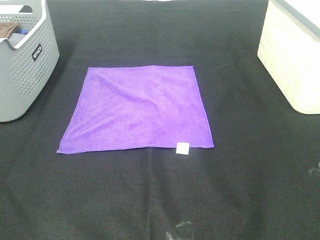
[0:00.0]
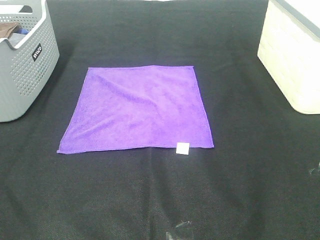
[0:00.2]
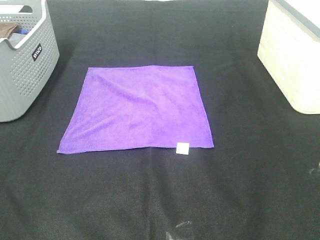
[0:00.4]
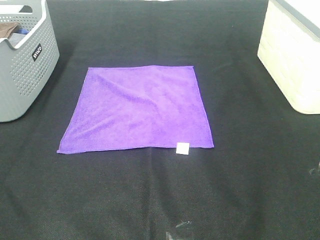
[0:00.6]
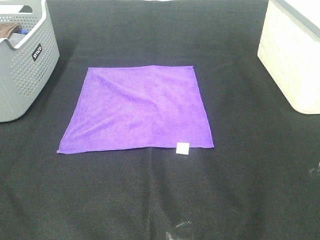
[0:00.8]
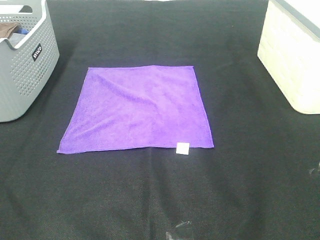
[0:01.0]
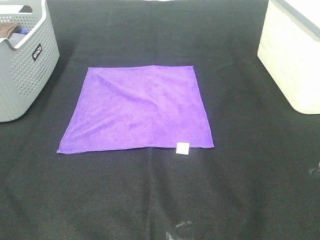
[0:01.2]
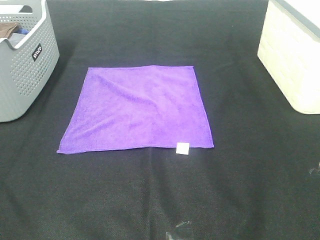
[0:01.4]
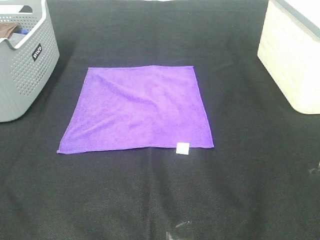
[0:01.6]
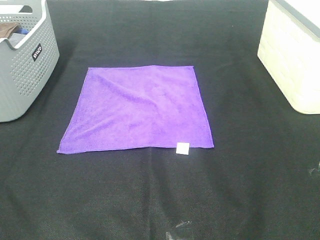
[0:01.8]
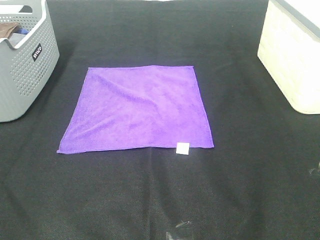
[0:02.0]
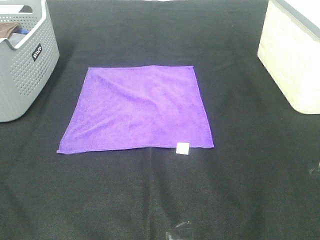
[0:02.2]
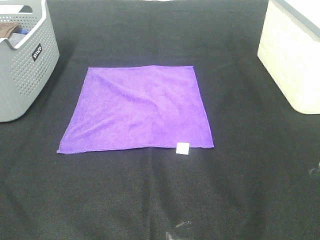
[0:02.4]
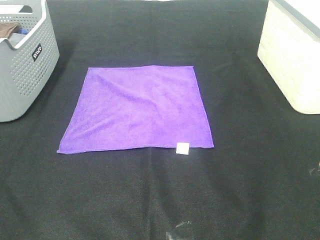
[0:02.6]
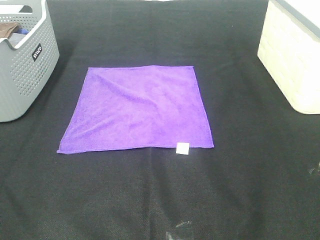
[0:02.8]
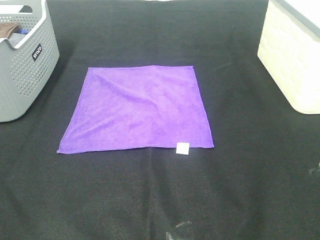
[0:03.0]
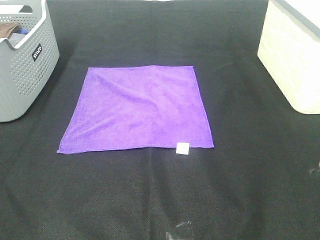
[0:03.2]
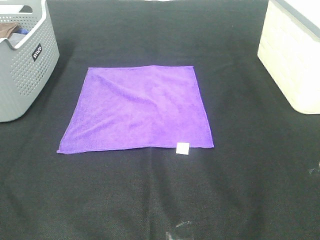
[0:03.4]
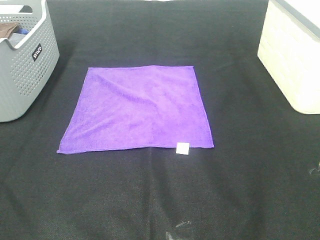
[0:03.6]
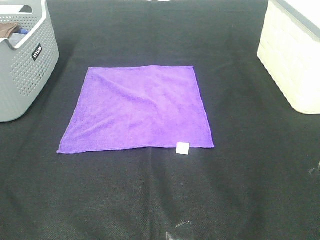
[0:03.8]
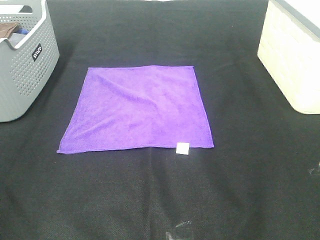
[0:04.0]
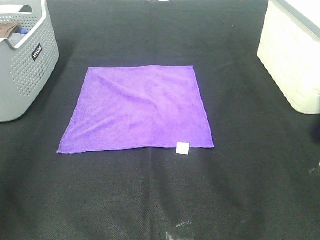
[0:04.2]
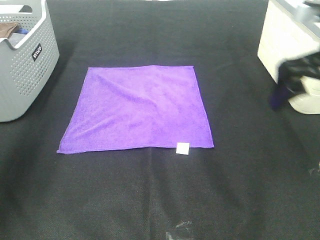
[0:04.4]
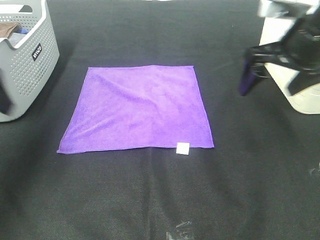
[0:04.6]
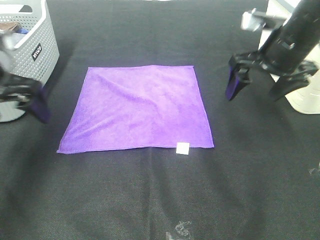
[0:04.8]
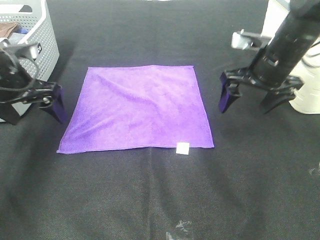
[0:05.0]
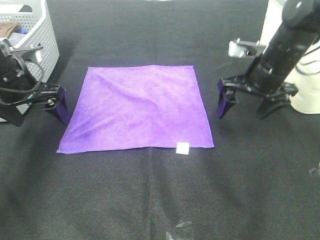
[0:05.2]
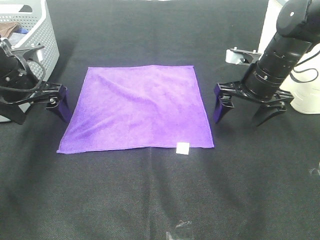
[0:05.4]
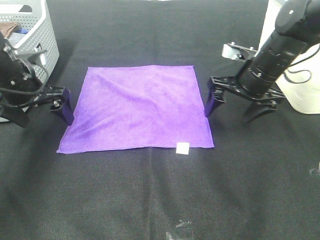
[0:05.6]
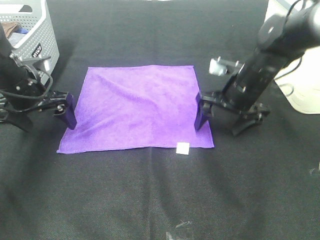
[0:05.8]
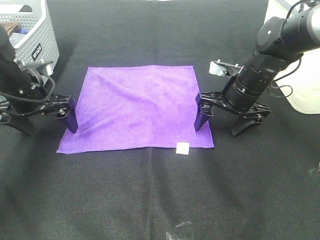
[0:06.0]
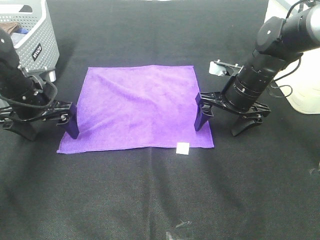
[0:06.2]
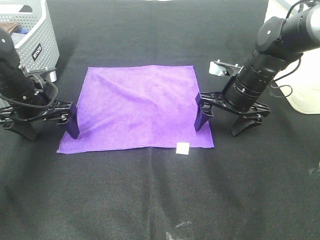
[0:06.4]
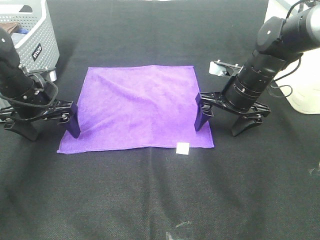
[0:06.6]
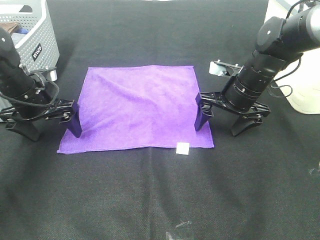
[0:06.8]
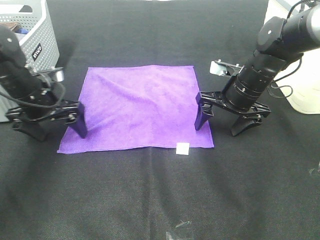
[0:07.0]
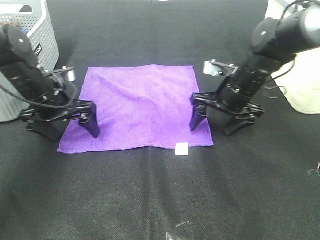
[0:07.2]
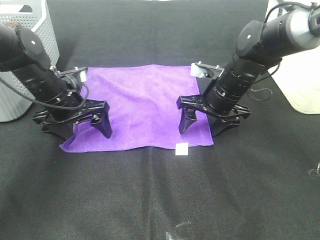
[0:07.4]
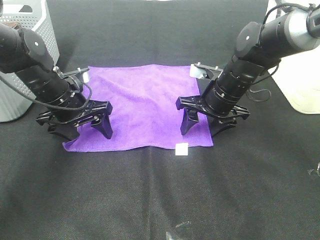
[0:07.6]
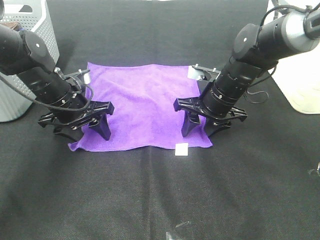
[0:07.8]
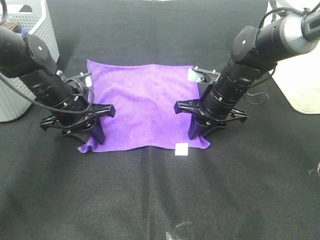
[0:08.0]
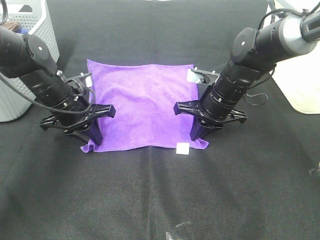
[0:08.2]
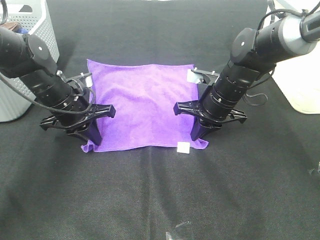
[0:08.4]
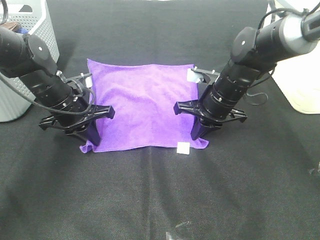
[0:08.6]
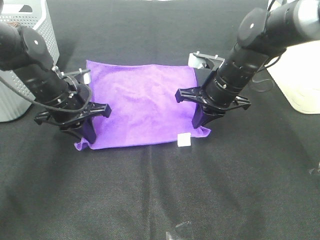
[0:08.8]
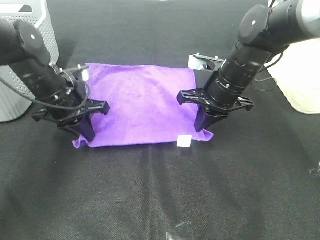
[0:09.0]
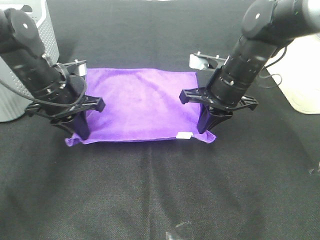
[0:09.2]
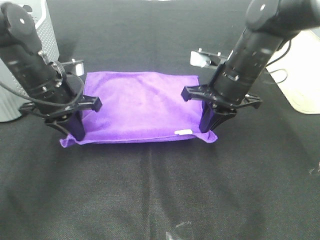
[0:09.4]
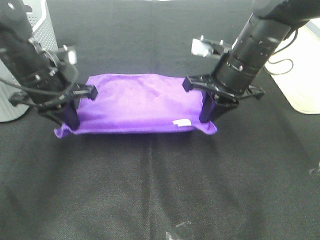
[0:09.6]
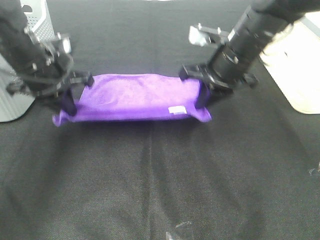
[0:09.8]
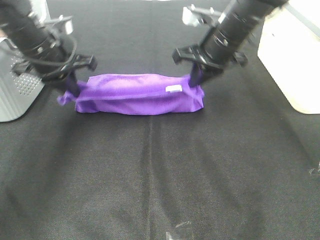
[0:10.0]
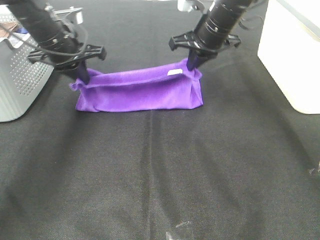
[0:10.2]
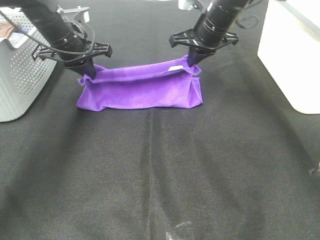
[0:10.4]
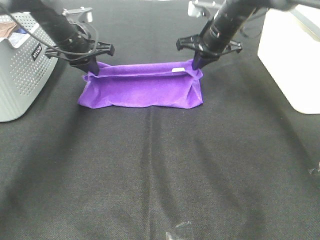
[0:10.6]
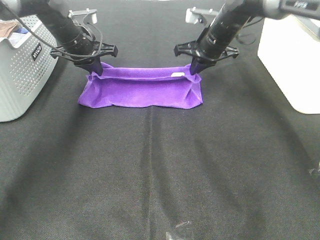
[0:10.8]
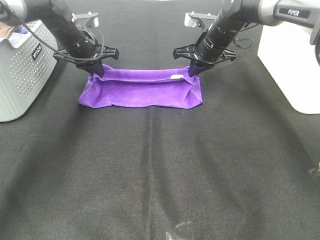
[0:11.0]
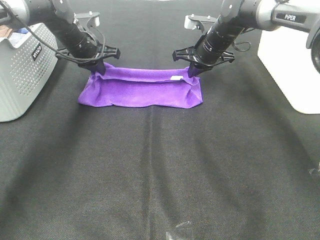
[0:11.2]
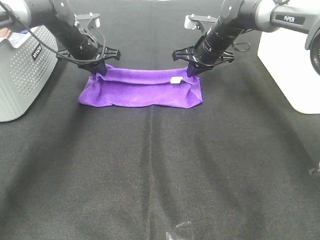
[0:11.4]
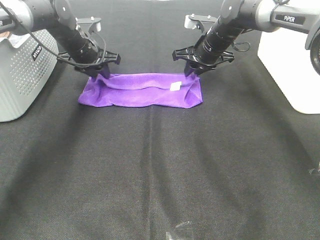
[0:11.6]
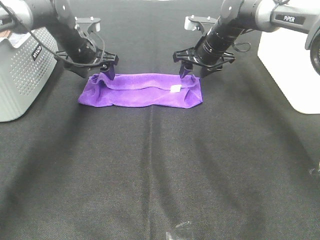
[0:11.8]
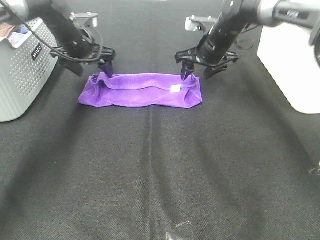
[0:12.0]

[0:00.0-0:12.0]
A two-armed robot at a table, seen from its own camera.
Task of the whole recording: Fold towels.
Step, 0:00.0 to 0:08.2: Left hand: grab the bottom left corner of purple towel.
Step, 0:00.0 to 0:08.2: Right hand: grab the bottom right corner of purple towel.
Step, 0:08.4 to 0:11.2: Left hand: fold the purple towel up.
Step, 0:08.4 to 0:11.2: Right hand: fold the purple towel up.
0:00.0 to 0:03.0: Both grippers stay put.
0:03.0 to 0:04.4: The two grippers go about 25 cm forward.
0:04.4 to 0:06.0: Both grippers move downward and forward, approximately 20 cm.
0:06.0 to 0:07.6: The left gripper travels to the right by roughly 5 cm.
0:07.6 to 0:09.0: The right gripper closes. Meanwhile the left gripper closes.
0:09.0 to 0:10.4: The grippers both shift forward and upward by some 15 cm.
0:10.4 to 0:12.0: The right gripper opens, while the left gripper changes place by roughly 5 cm, and opens.

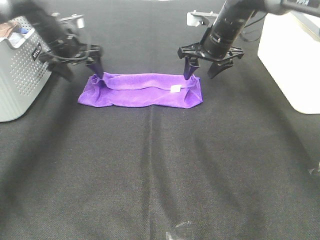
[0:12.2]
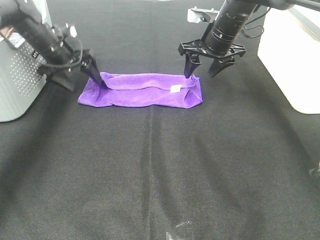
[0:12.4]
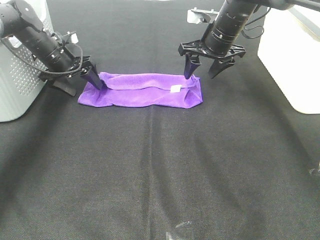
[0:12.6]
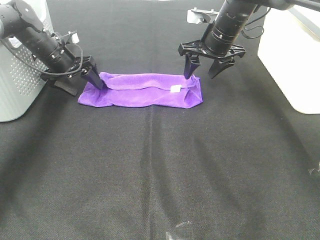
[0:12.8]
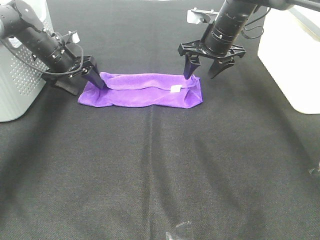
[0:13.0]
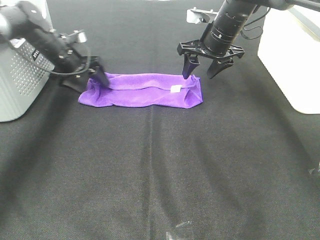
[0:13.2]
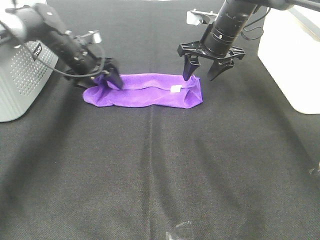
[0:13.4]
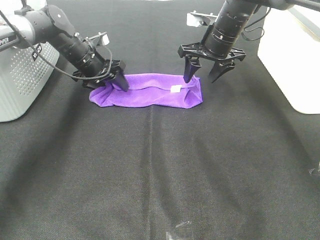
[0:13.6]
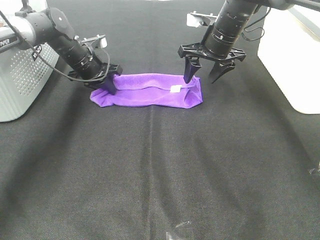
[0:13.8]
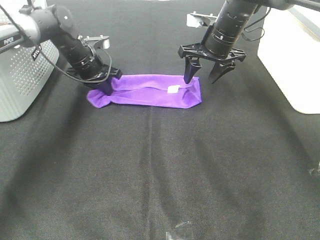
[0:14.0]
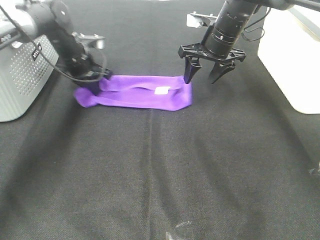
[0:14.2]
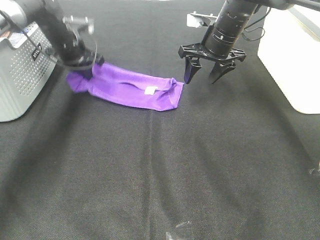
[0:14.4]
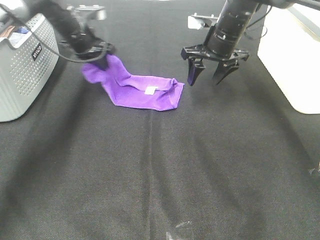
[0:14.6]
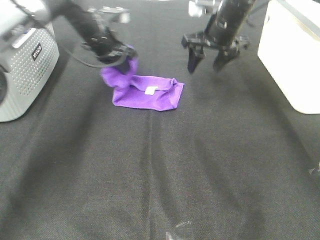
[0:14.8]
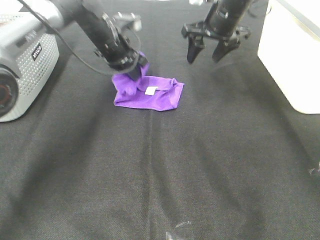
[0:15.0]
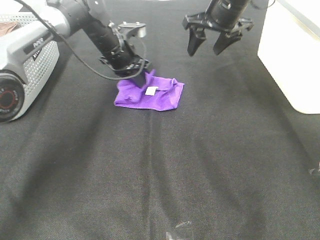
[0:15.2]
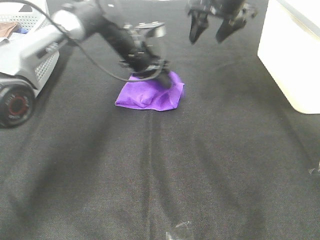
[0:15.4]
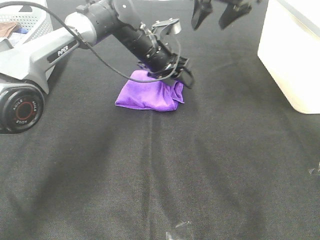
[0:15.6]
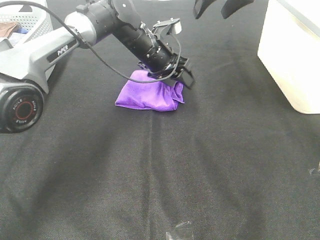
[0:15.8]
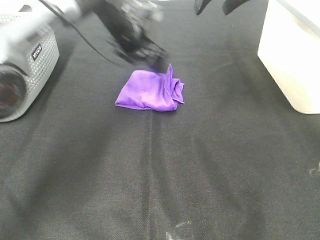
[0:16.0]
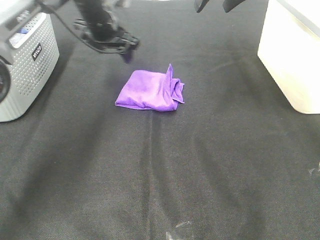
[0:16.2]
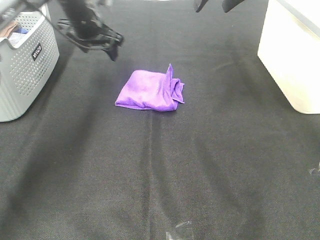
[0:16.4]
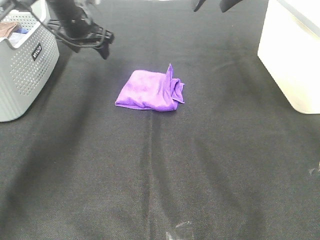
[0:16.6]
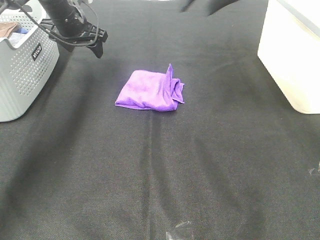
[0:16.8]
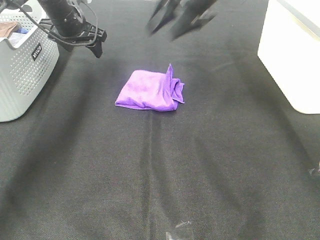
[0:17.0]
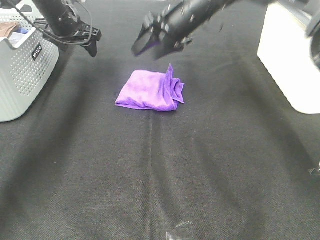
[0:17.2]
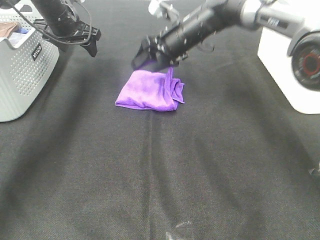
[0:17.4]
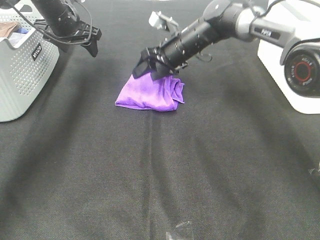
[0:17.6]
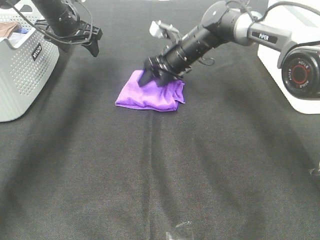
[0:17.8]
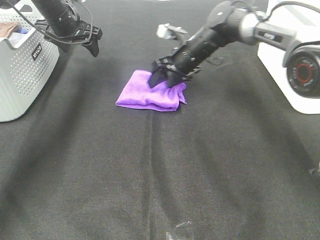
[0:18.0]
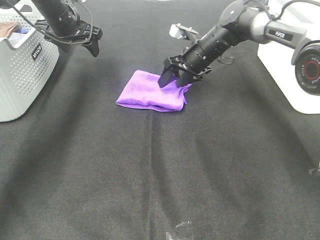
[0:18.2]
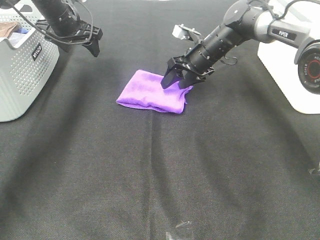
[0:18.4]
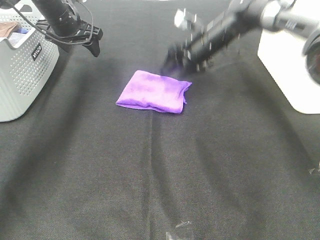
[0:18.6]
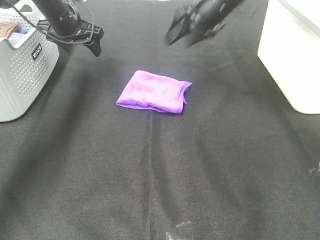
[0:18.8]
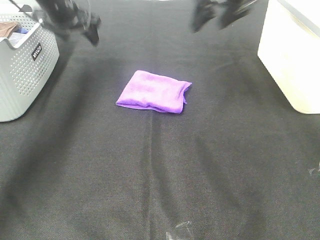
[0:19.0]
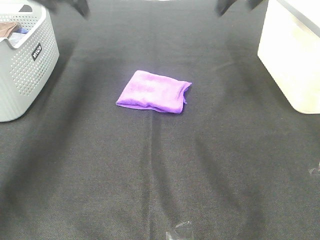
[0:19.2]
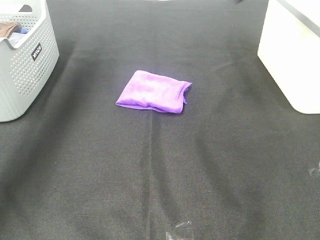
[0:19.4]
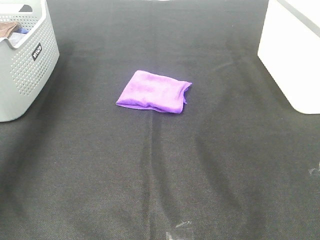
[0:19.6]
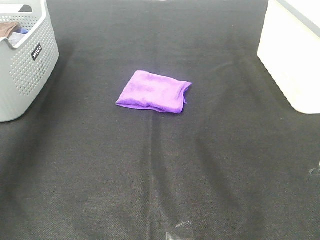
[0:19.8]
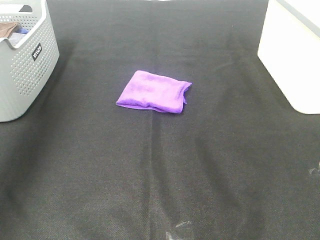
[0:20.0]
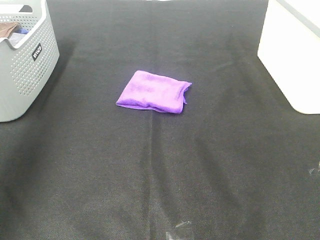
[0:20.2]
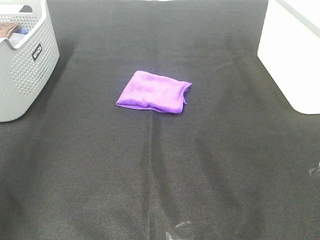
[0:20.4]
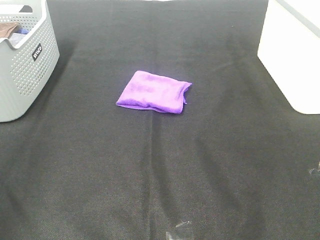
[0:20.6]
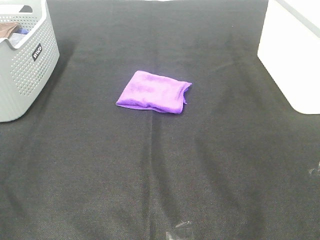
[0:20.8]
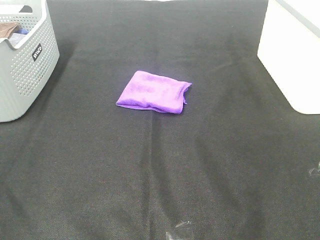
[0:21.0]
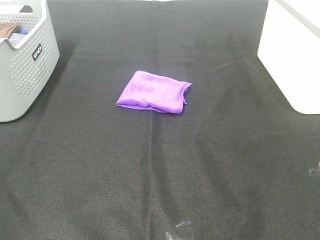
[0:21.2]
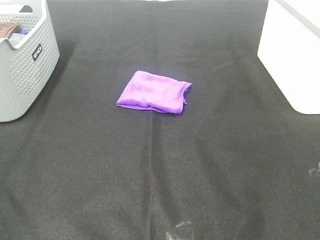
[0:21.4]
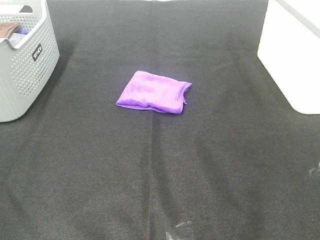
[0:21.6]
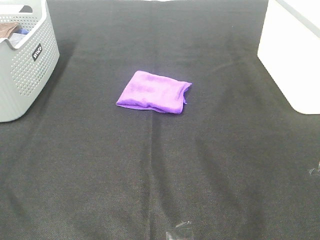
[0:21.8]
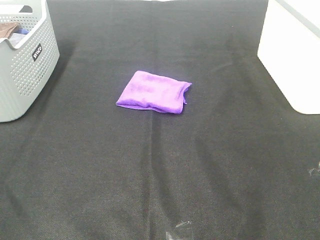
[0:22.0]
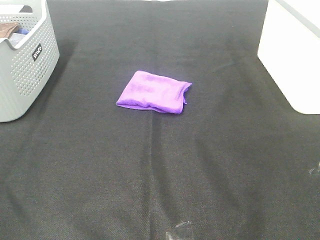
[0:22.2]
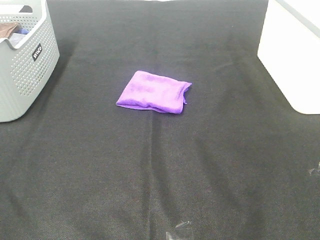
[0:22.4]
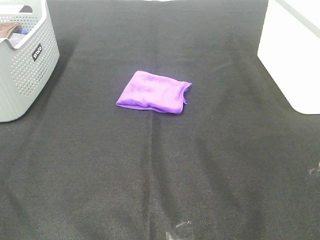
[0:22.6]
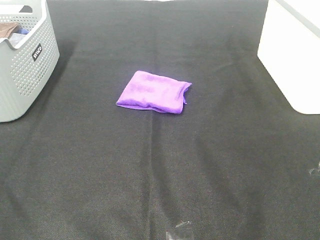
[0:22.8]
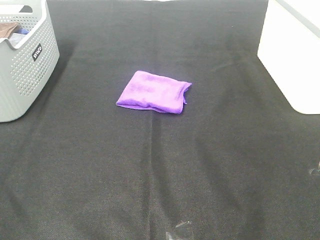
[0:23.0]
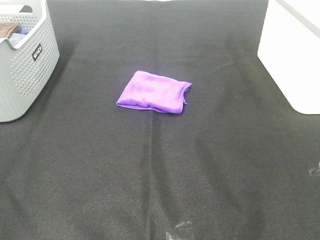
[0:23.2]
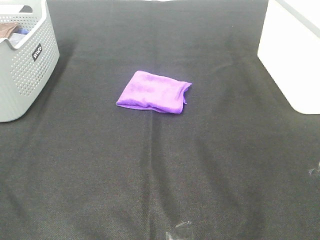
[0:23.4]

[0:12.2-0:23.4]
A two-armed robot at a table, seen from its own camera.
Task of the whole recording: Fold towels.
Step, 0:12.2 to 0:15.2: Left hand: fold the purple towel from left to right.
Step, 0:15.4 to 0:18.0: Right hand: adjust the purple towel.
0:12.2 to 0:13.8: The left gripper heads downward, covering roughly 5 cm, and closes up.
0:13.8 to 0:15.4: The left gripper goes some 15 cm to the right, and opens. Meanwhile the right gripper shifts roughly 10 cm upward.
0:15.4 to 0:17.0: The right gripper moves to the left, some 5 cm, and moves roughly 5 cm upward and comes back. Meanwhile the left gripper travels to the left by some 15 cm.
0:17.0 to 0:18.6: The right gripper is displaced downward by some 10 cm.
0:18.6 to 0:20.2: The left gripper goes approximately 40 cm backward and upward, while the right gripper shifts about 50 cm backward, upward and to the right.
0:20.2 to 0:21.8: The left gripper shifts some 25 cm backward and downward.
0:21.8 to 0:23.4: Neither gripper changes place.
